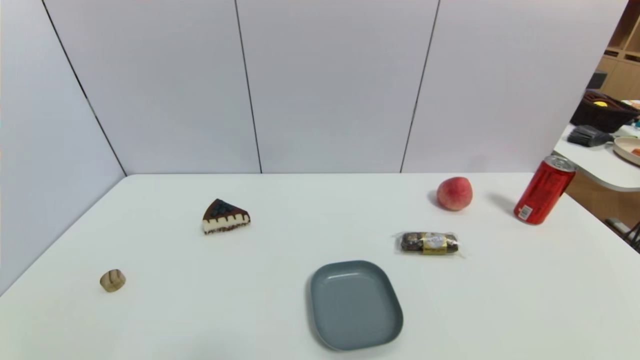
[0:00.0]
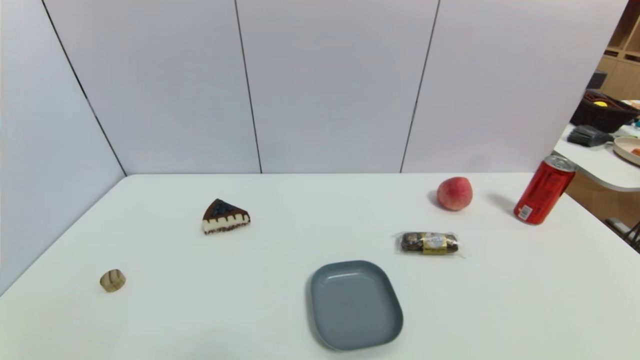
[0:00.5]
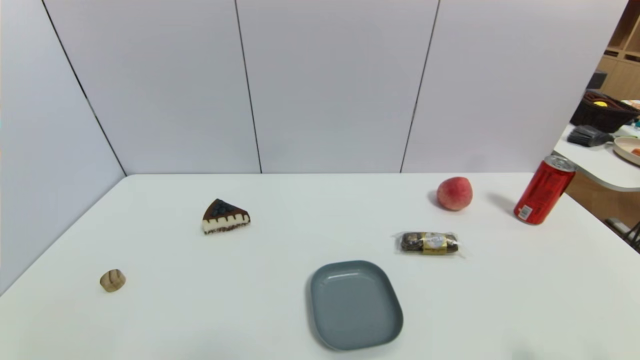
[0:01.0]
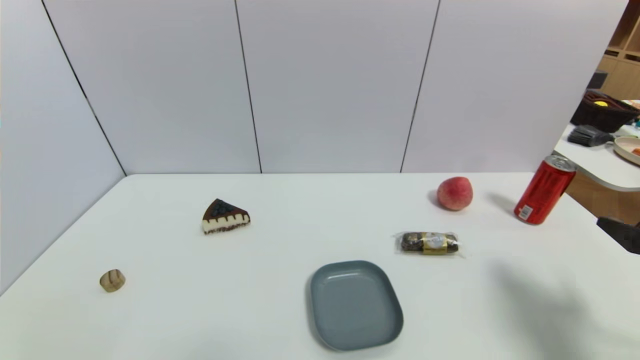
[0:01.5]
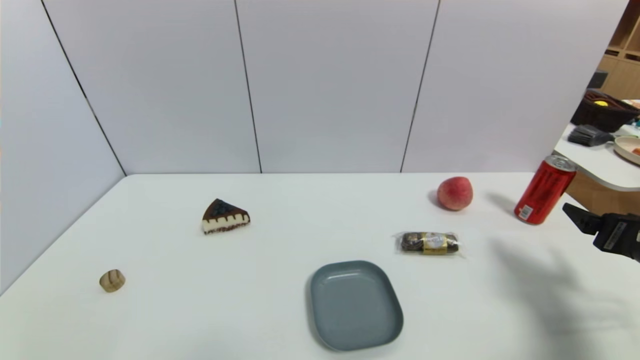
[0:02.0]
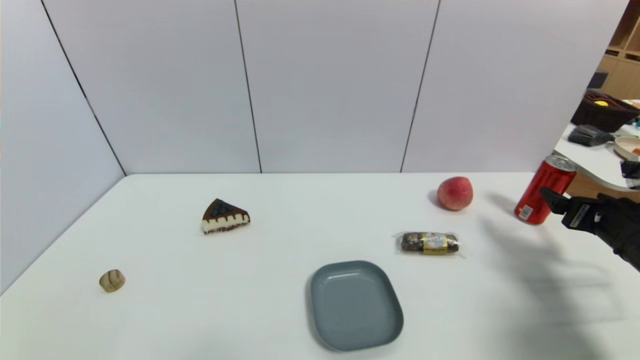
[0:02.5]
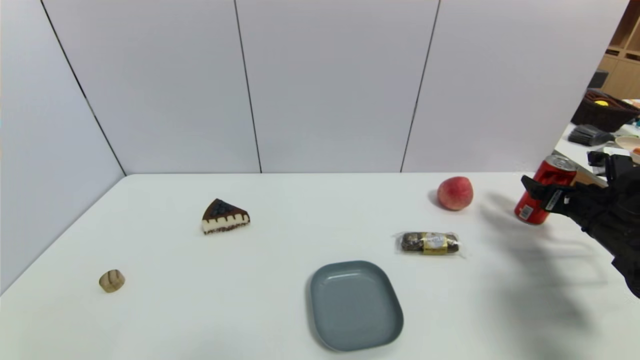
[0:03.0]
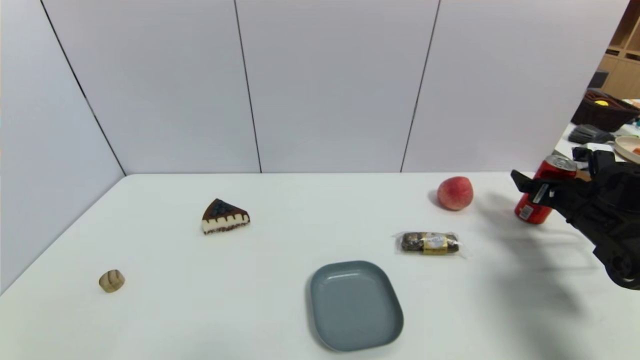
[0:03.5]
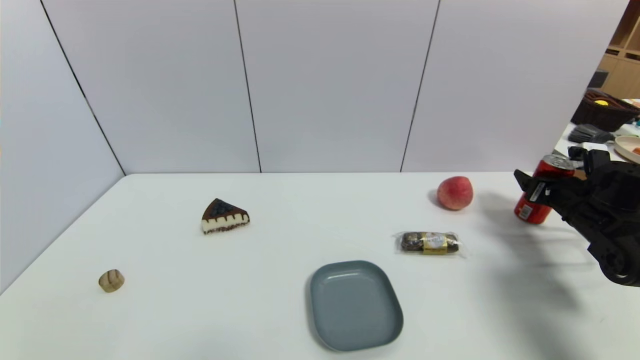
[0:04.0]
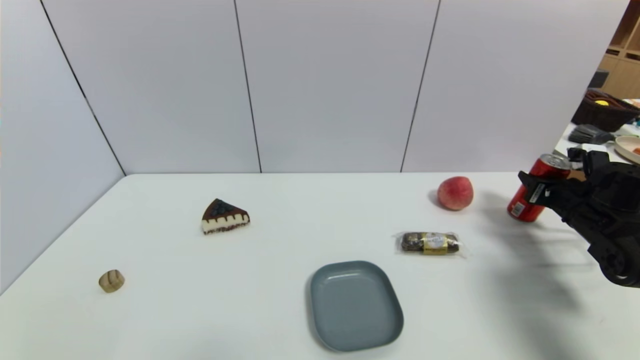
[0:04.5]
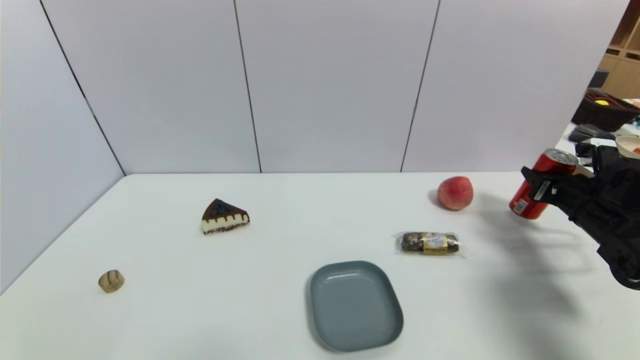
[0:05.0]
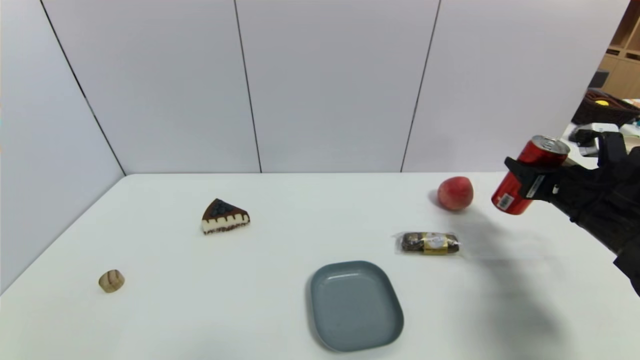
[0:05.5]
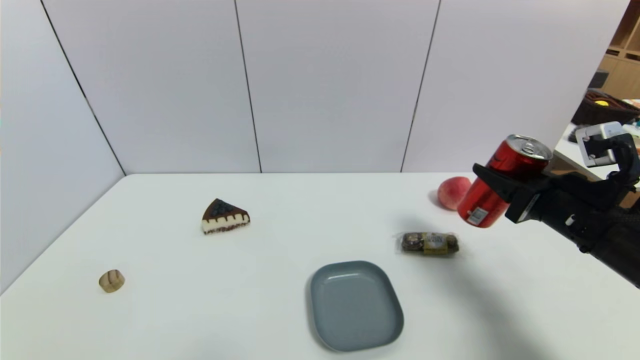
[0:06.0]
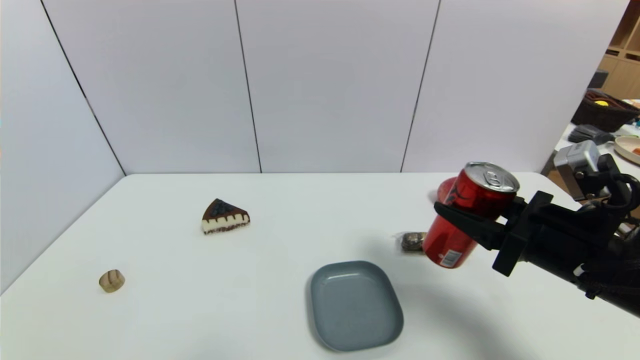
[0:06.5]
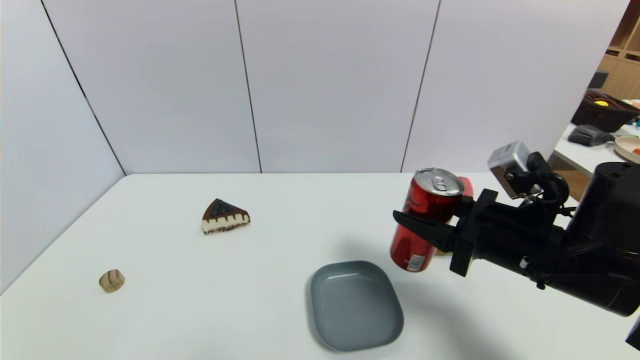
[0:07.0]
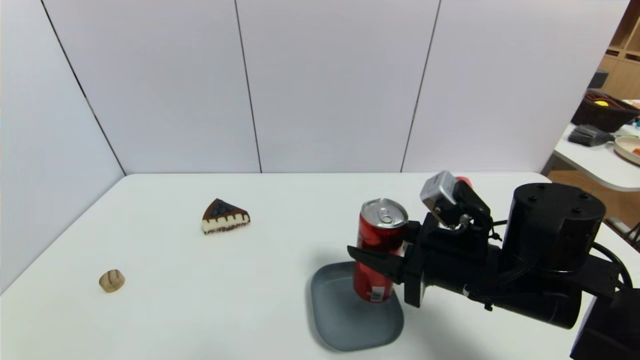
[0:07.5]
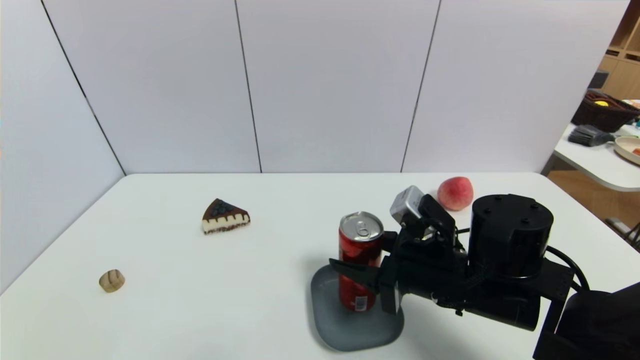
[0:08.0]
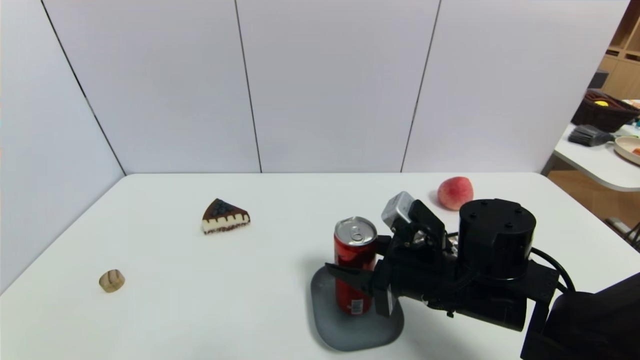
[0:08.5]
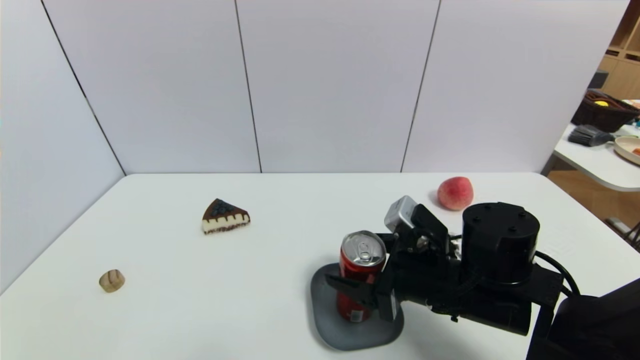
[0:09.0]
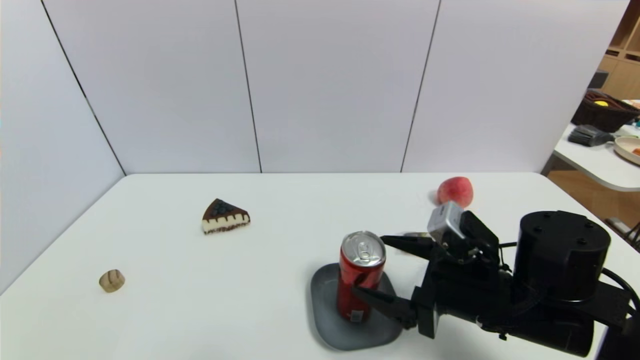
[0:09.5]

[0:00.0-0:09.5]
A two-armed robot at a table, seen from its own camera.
Task of the whole recording: use a gripper to pick the target object and place on the dish.
Step, 0:00.0 to 0:04.5: Grasp the coke with the right gripper.
0:00.0 to 0:02.0: The right gripper is displaced forward by approximately 20 cm.
0:02.0 to 0:04.0: The right gripper heads forward, covering about 15 cm, and closes.
0:04.0 to 0:05.5: The right gripper heads to the left, backward and upward, covering approximately 10 cm, and closes its fingers.
0:05.5 to 0:07.5: The right gripper heads to the left and backward, covering about 20 cm.
0:07.5 to 0:09.5: The right gripper opens.

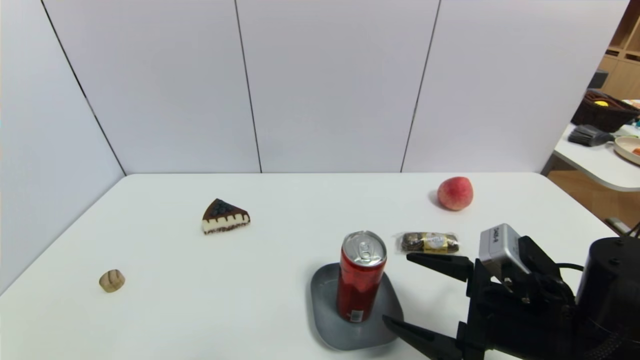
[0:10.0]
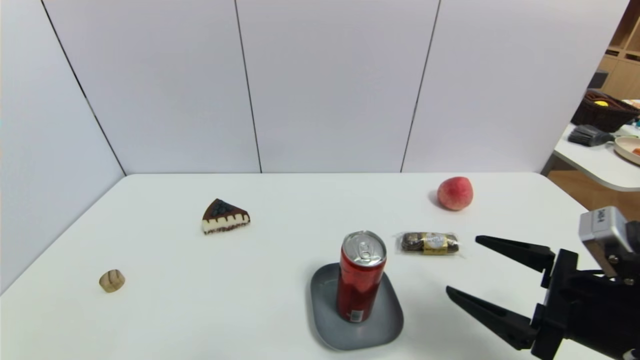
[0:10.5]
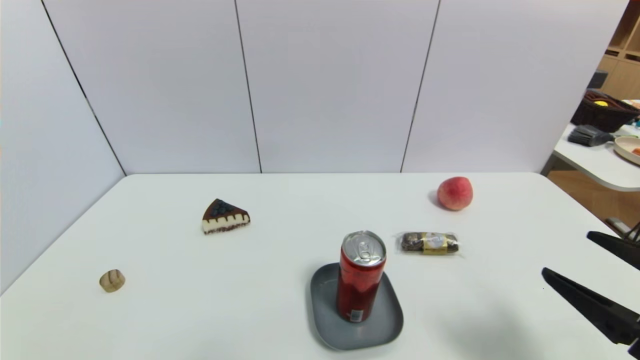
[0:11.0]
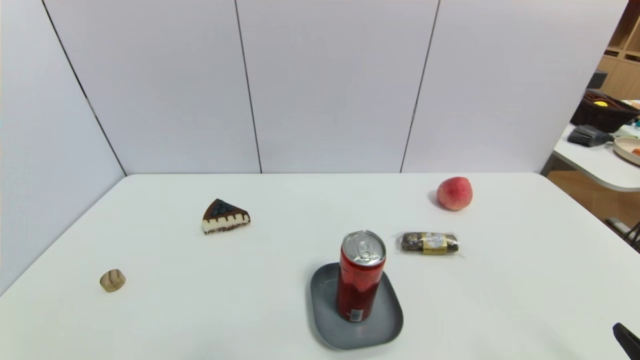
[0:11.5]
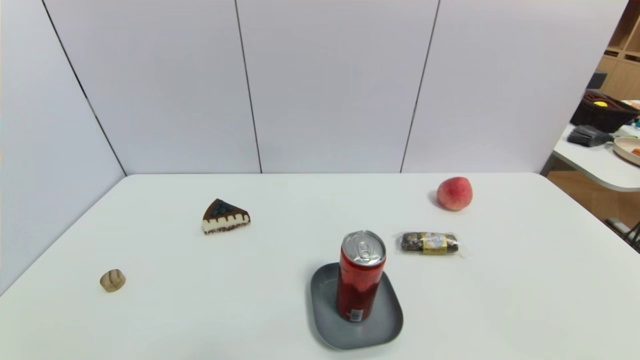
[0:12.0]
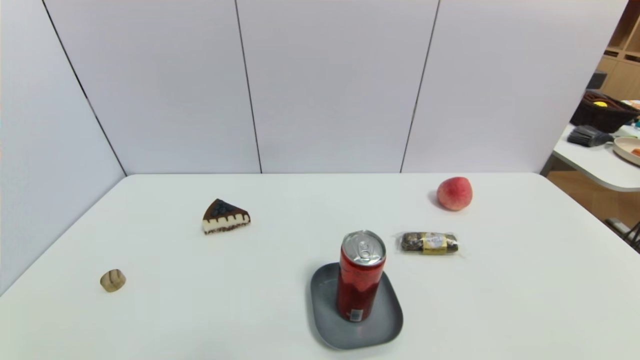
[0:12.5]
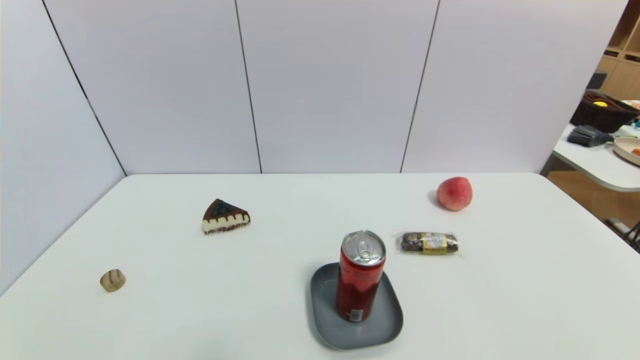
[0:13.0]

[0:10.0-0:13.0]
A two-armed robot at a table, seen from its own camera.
Task of the whole recording: use a gripper to pick the target object and place on the dish.
0:10.0 to 0:11.5: The right gripper shifts roughly 20 cm backward and to the right.
